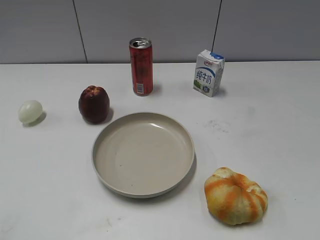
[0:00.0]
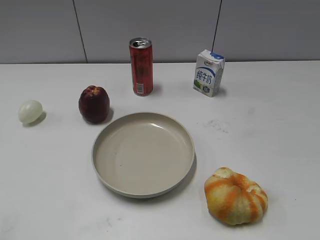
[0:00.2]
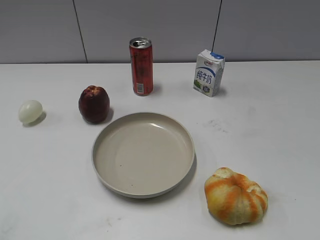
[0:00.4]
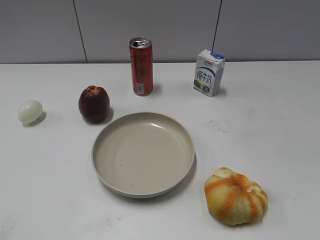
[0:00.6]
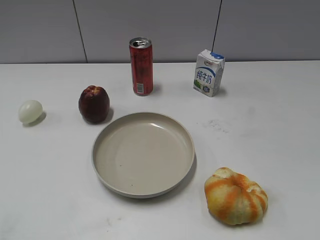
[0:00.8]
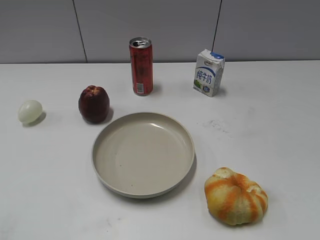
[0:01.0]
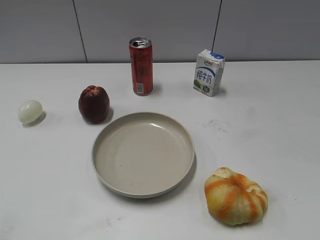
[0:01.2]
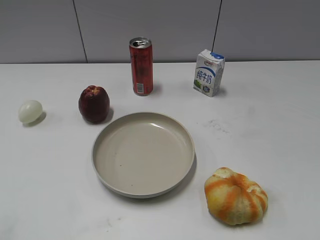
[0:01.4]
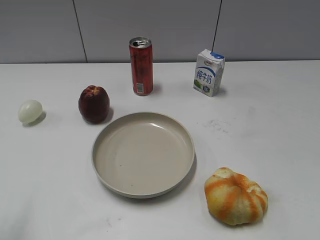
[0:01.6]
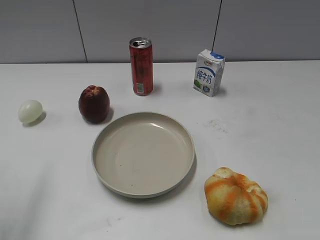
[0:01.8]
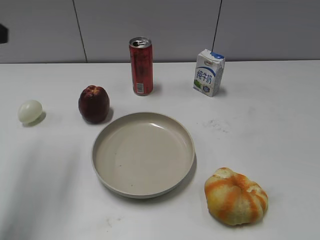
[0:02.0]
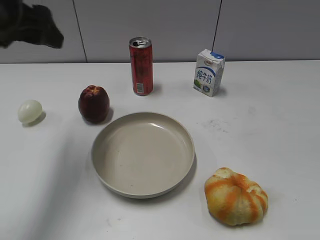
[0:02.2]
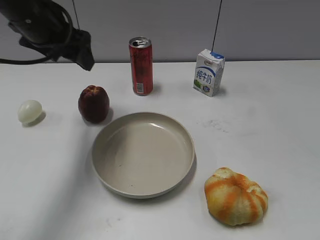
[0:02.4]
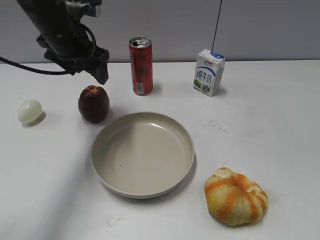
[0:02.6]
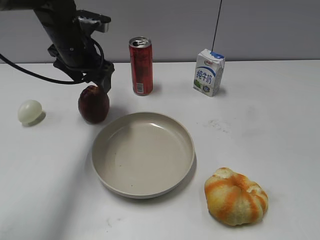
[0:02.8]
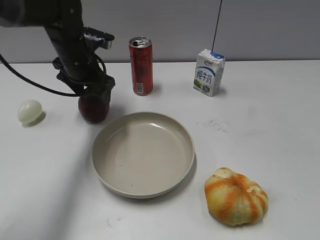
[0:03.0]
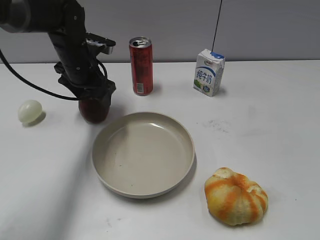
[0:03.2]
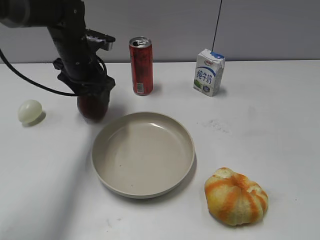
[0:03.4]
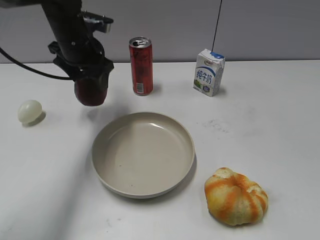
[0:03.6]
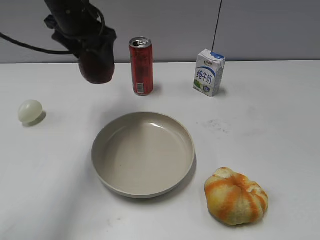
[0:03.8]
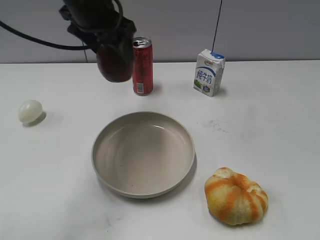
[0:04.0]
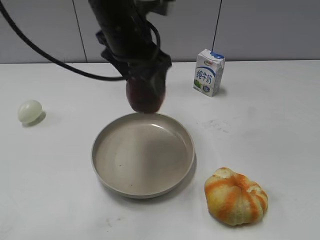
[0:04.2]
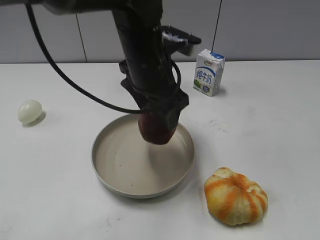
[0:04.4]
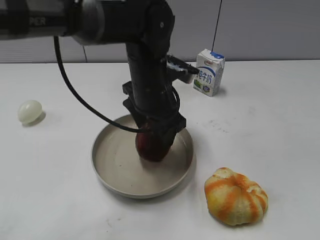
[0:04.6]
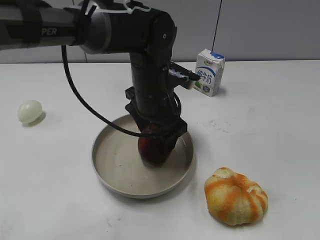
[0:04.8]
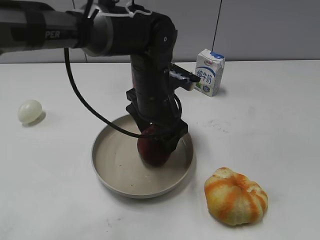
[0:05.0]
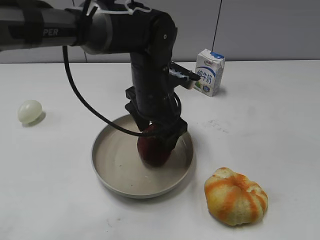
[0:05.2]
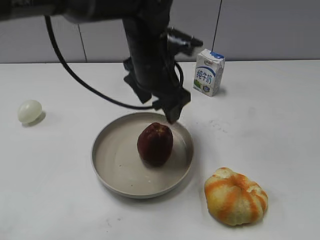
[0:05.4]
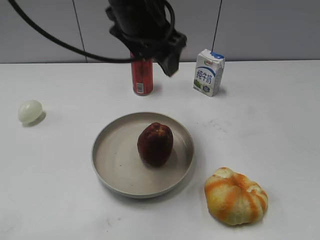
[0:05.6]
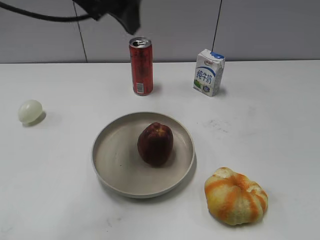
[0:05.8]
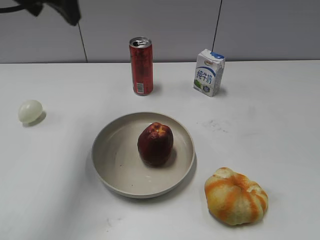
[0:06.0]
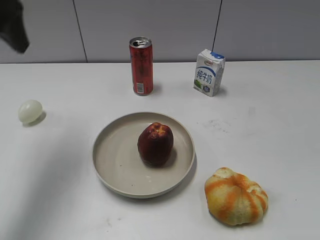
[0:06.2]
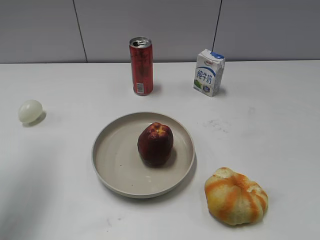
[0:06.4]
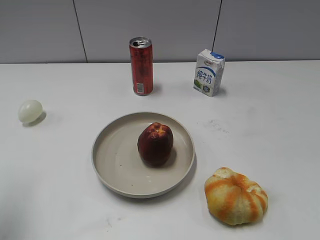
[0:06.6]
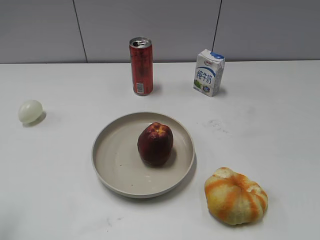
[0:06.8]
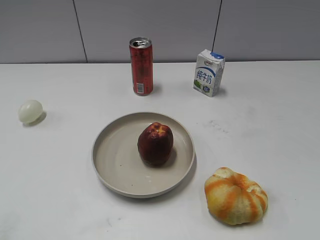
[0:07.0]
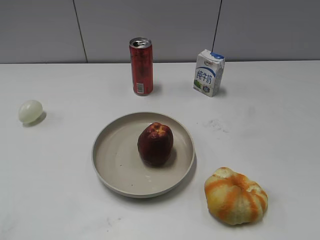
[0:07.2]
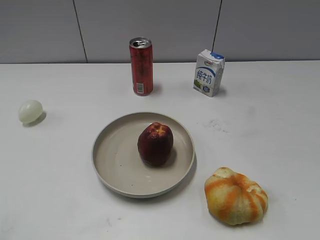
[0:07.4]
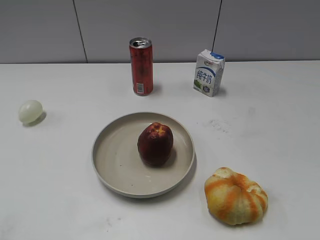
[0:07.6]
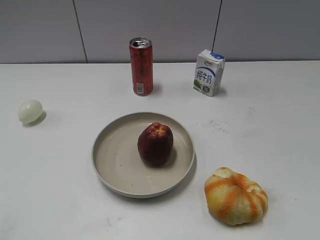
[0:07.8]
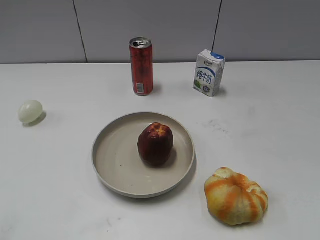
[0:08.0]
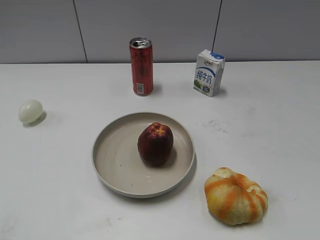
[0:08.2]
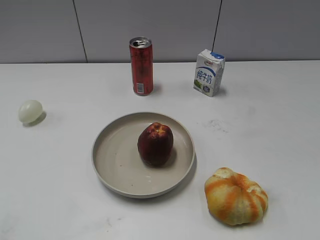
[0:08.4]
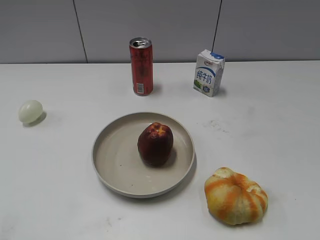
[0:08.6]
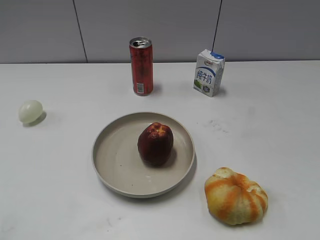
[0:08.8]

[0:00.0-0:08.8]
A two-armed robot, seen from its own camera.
Step, 0:00.6 to 0:03.2: Grasp the apple with left gripper.
Step, 0:03.4 to 0:05.2: Place the apple on the plate with left gripper.
0:01.4 to 0:03.0: The left gripper shifts about 40 cm forward and to the right.
0:03.0 to 0:04.4: The left gripper heads to the right, backward and upward, covering some 20 cm.
0:04.4 to 0:05.8: The left gripper is displaced upward by roughly 10 cm.
0:05.8 to 0:07.4: The left gripper travels backward and to the left by some 40 cm, and closes up.

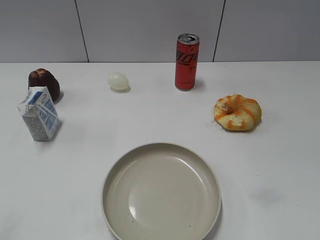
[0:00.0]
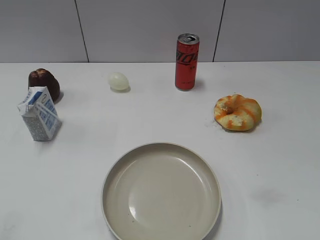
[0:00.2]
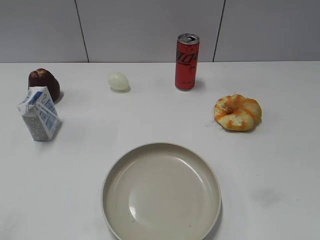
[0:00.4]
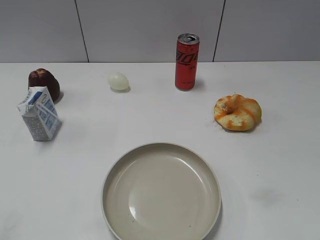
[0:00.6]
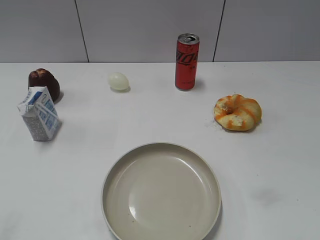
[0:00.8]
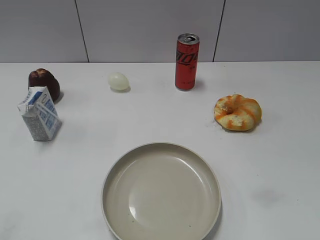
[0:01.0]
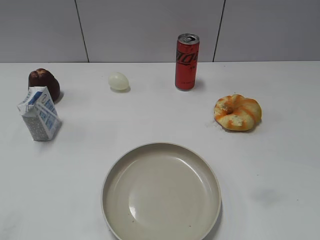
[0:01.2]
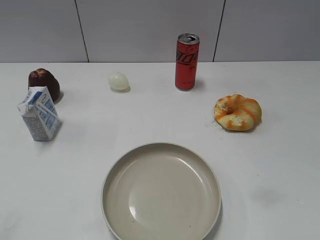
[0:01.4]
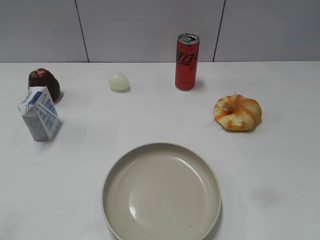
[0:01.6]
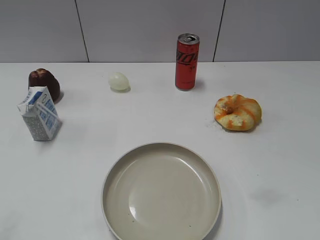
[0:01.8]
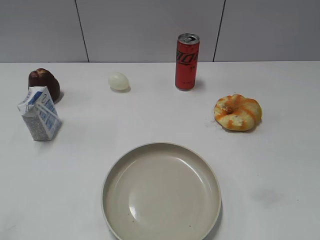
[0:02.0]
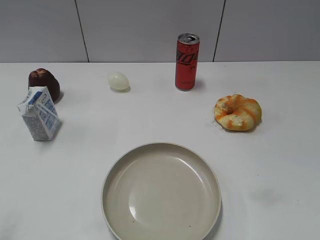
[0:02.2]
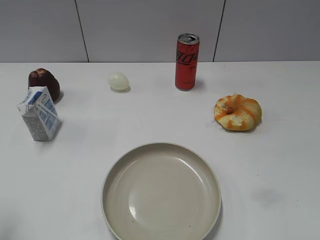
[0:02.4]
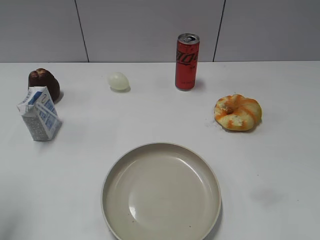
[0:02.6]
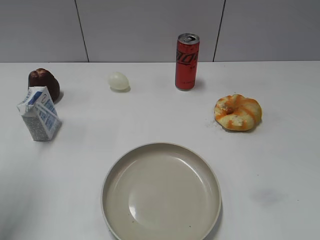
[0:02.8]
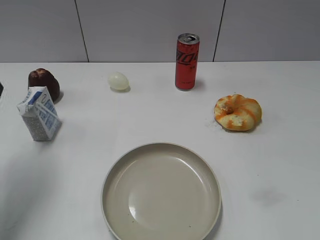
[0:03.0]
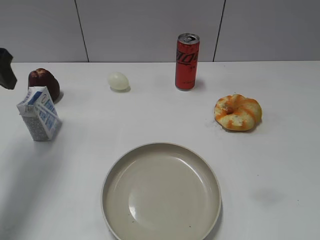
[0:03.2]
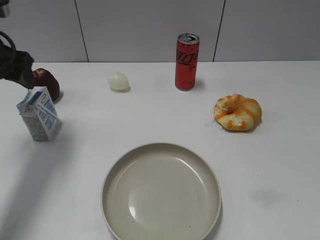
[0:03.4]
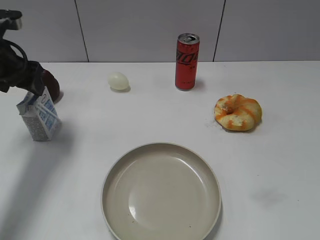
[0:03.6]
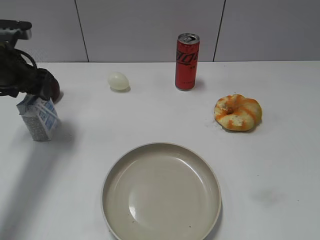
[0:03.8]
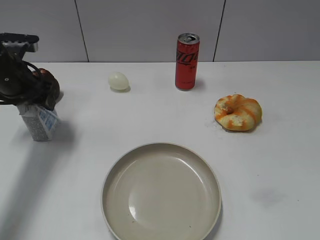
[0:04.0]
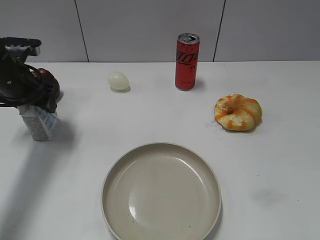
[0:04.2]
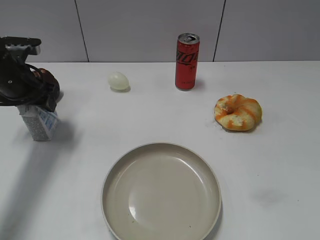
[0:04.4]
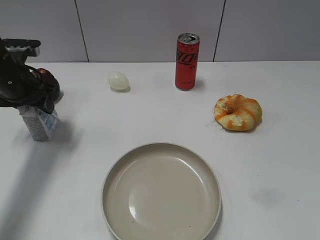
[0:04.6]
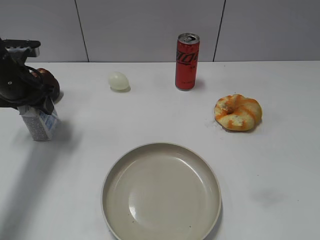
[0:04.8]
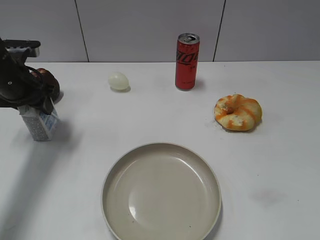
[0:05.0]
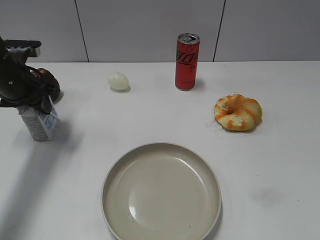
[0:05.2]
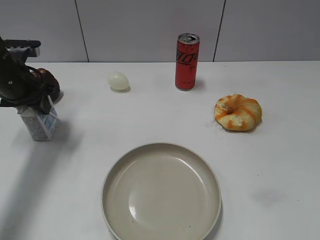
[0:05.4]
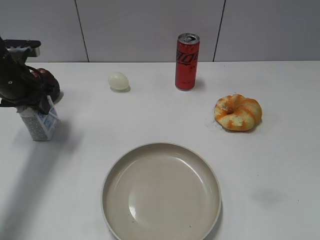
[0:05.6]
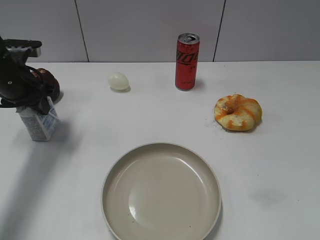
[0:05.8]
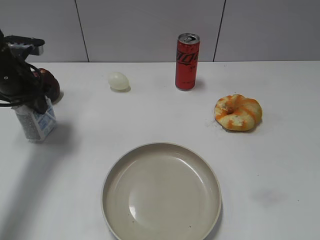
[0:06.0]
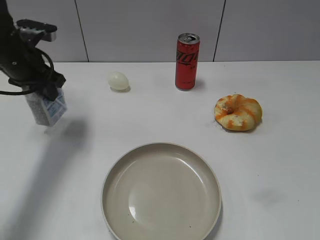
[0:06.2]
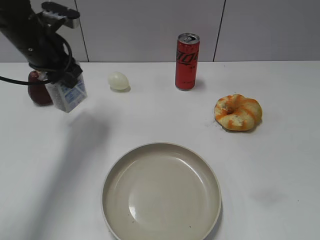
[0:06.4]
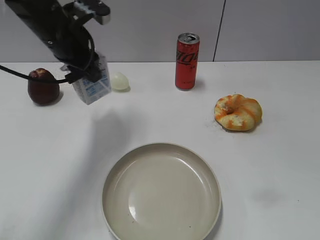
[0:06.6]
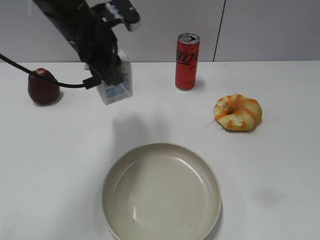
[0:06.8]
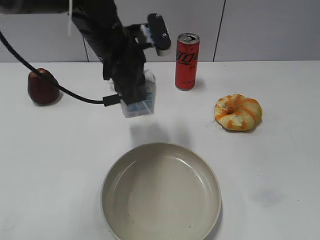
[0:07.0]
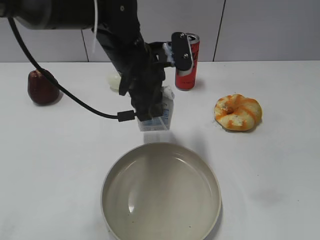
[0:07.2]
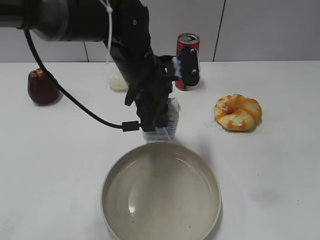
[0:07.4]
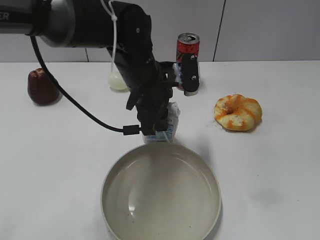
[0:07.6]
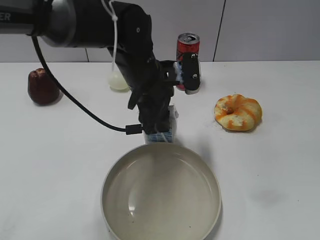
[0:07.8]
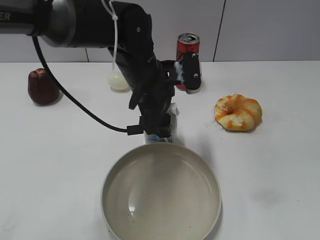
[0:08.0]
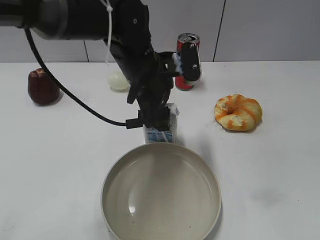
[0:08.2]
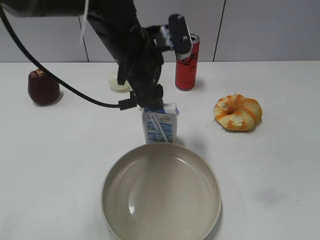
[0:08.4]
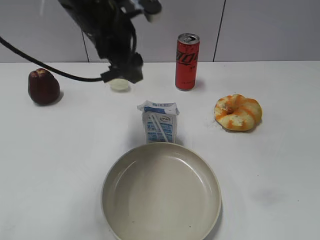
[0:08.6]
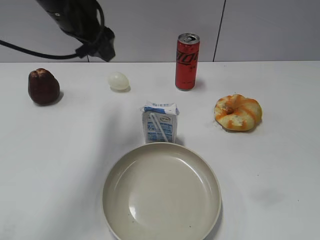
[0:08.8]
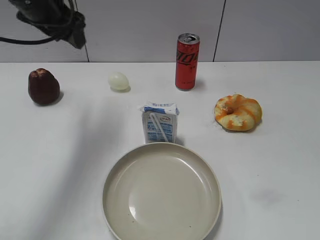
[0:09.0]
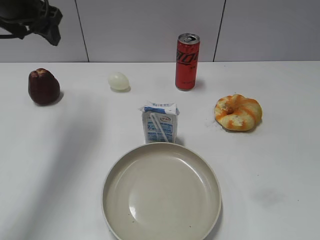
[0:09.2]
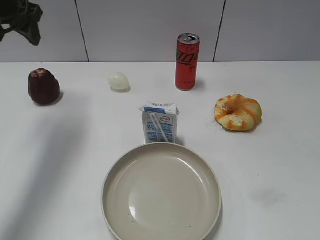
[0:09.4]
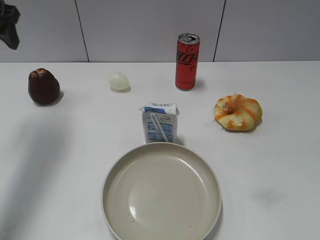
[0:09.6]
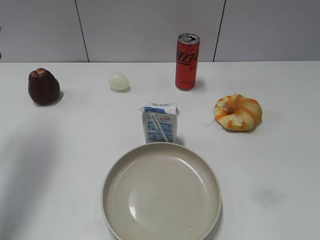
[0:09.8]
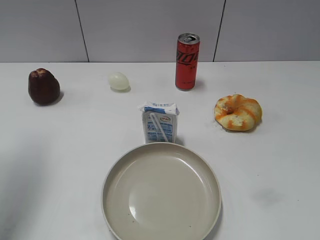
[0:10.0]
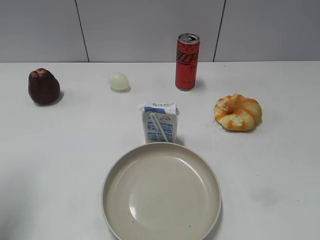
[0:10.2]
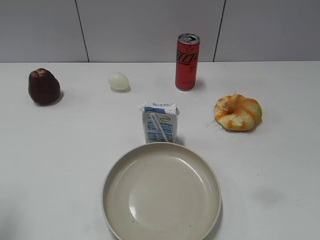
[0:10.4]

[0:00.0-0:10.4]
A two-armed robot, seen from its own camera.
Step, 0:01.4 to 0:05.6: Grasp the milk with left gripper.
Step, 0:05.8 to 0:08.0: Place the milk on the table with left gripper.
0:01.4 to 0:03.0: The left gripper goes some 25 cm forward.
0:03.0 to 0:04.4: The left gripper travels downward and forward by some 15 cm.
0:04.4 to 0:06.0: The left gripper closes.
0:06.0 to 0:07.4: The left gripper travels to the right by about 25 cm.
0:07.4 to 0:09.0: The left gripper moves to the left and upward, roughly 20 cm, and opens.
0:09.0 to 0:10.4: The left gripper shifts some 25 cm backward and to the left.

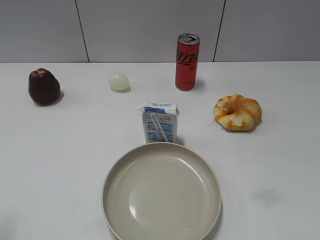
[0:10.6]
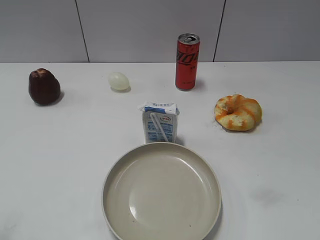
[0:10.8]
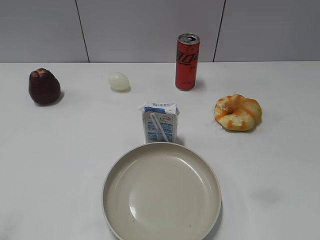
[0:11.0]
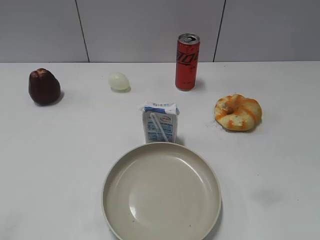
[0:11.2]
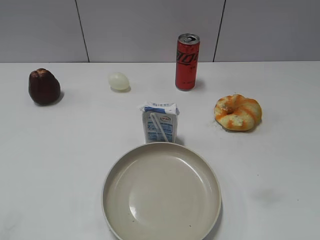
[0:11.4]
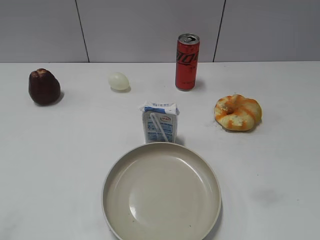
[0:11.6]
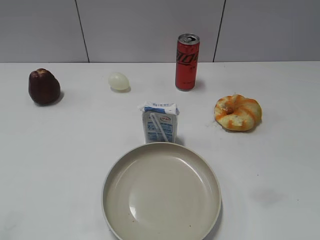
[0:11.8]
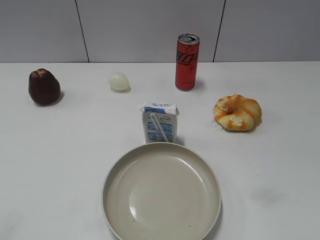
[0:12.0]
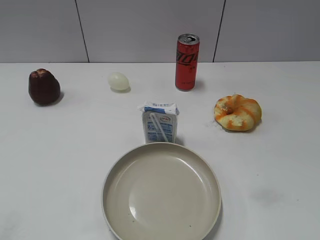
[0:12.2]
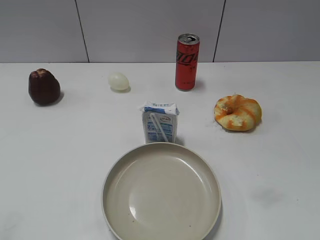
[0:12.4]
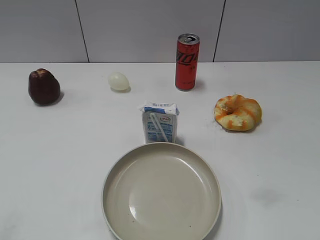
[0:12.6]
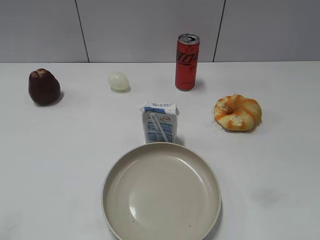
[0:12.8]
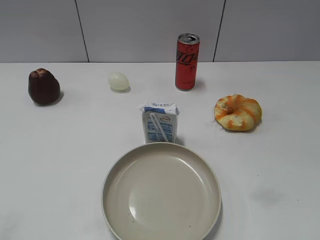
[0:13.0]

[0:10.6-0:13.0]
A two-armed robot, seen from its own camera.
0:11.8 to 0:13.0: Both grippers stay put.
